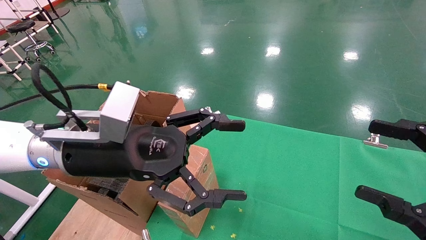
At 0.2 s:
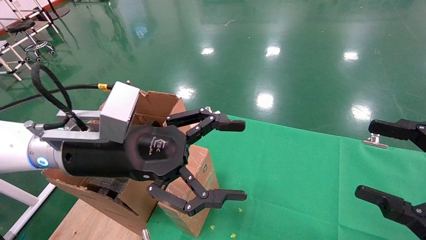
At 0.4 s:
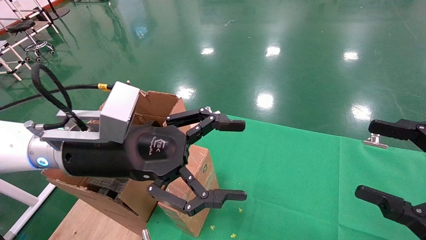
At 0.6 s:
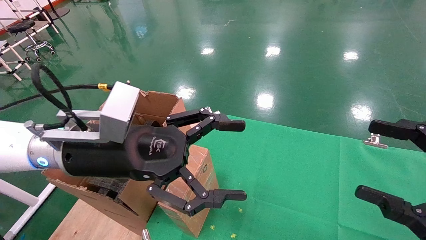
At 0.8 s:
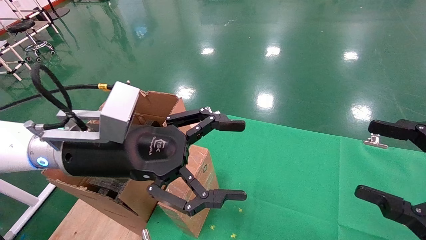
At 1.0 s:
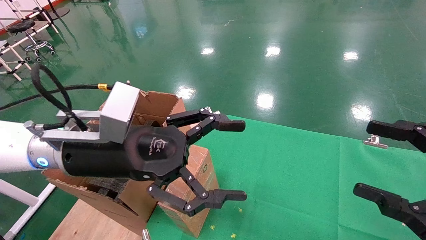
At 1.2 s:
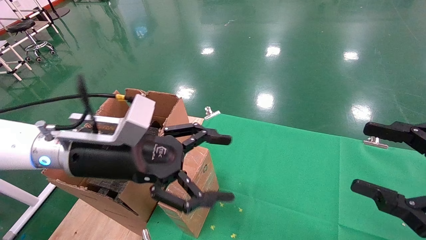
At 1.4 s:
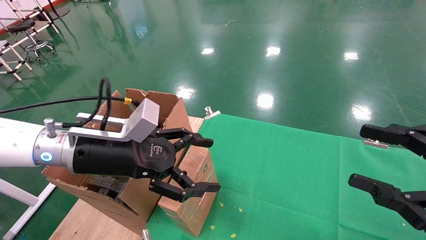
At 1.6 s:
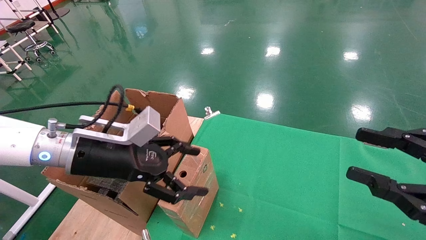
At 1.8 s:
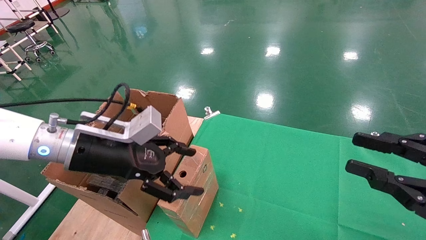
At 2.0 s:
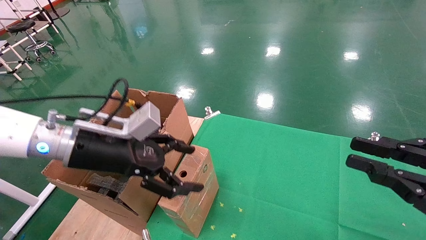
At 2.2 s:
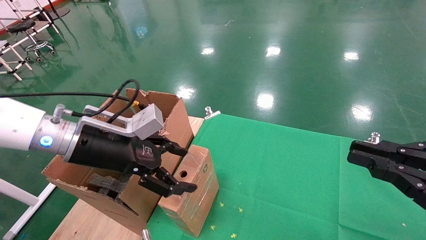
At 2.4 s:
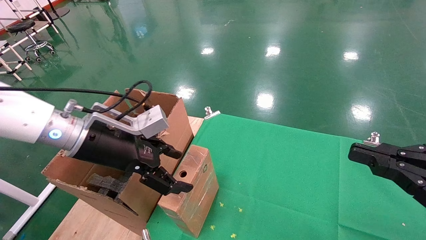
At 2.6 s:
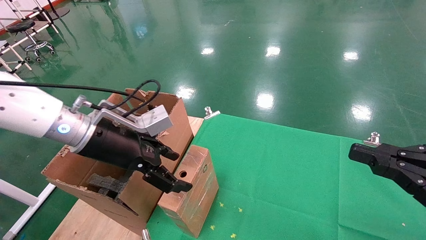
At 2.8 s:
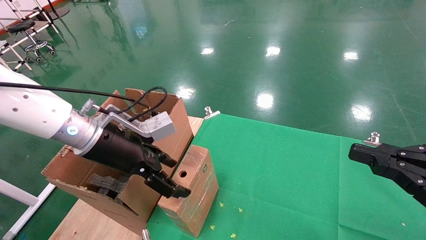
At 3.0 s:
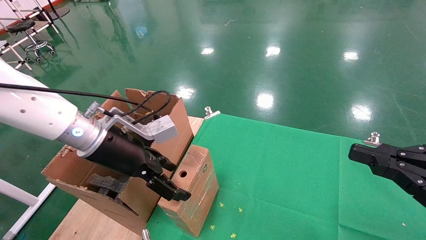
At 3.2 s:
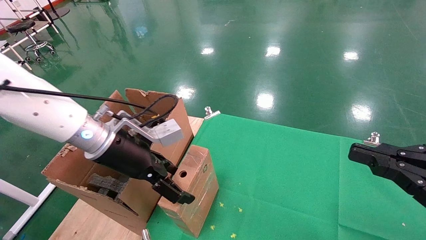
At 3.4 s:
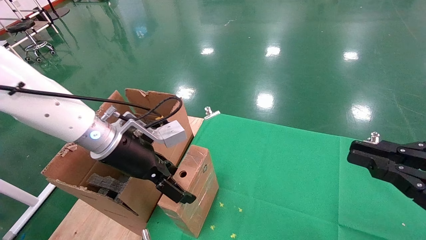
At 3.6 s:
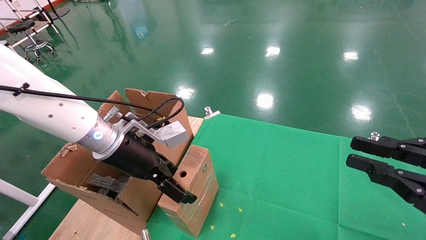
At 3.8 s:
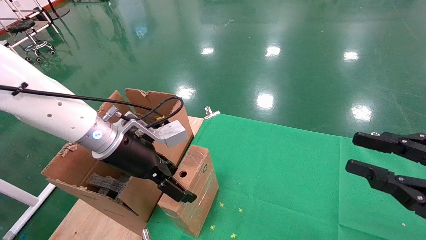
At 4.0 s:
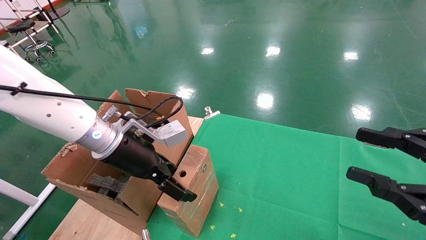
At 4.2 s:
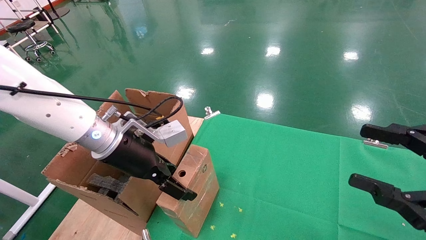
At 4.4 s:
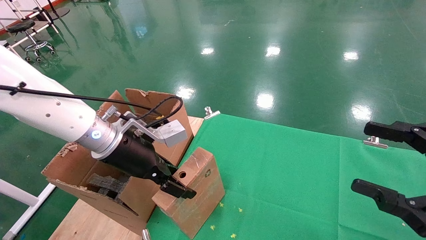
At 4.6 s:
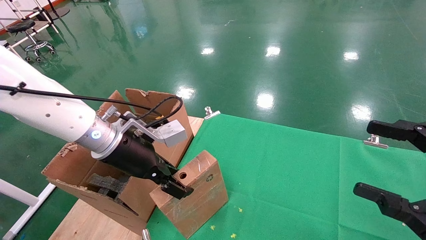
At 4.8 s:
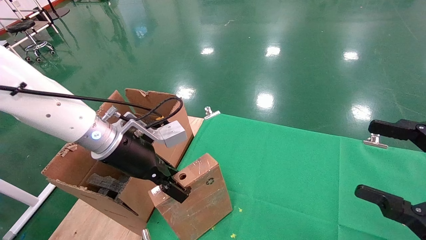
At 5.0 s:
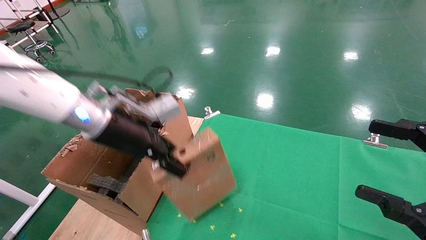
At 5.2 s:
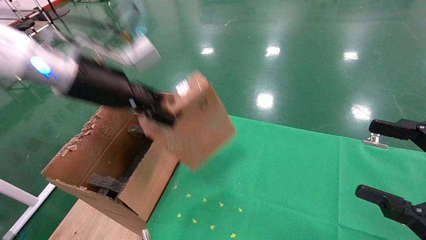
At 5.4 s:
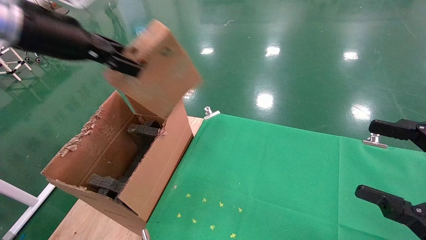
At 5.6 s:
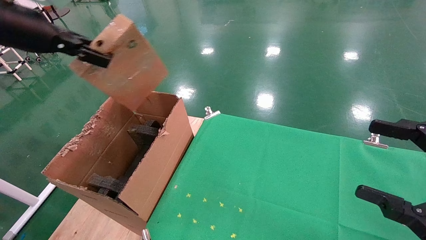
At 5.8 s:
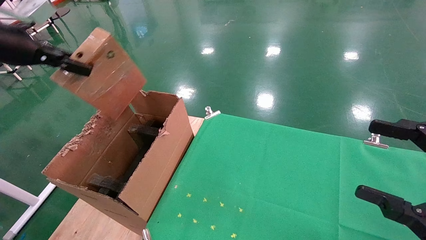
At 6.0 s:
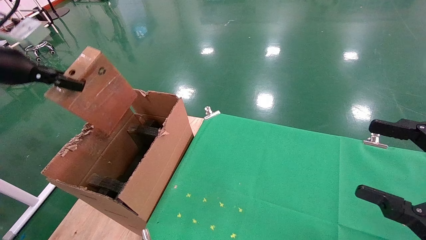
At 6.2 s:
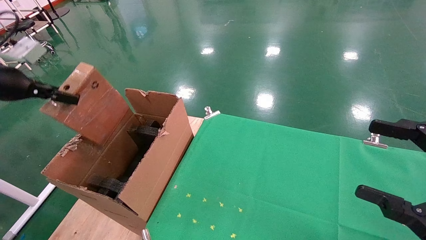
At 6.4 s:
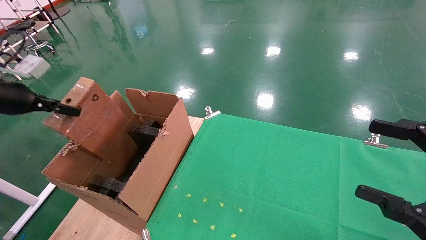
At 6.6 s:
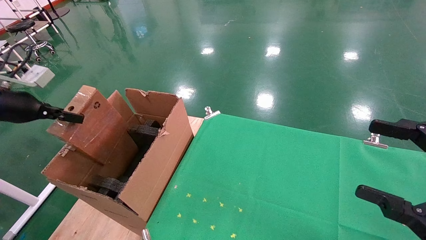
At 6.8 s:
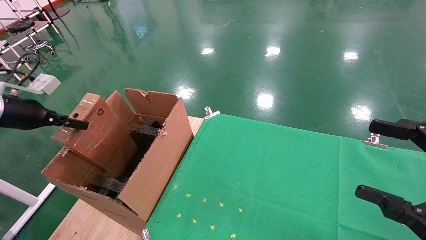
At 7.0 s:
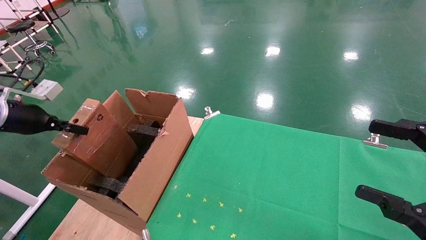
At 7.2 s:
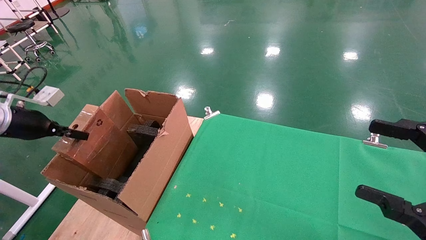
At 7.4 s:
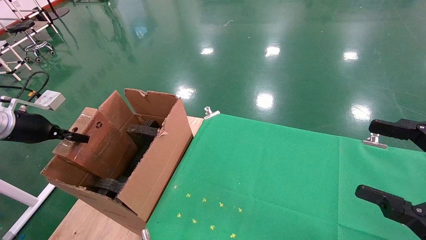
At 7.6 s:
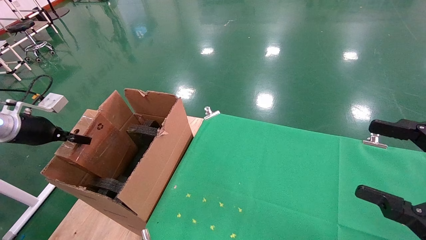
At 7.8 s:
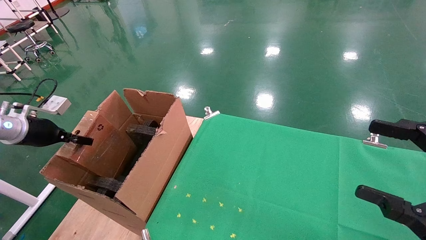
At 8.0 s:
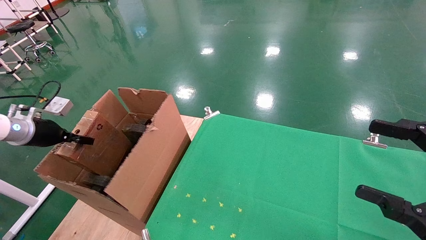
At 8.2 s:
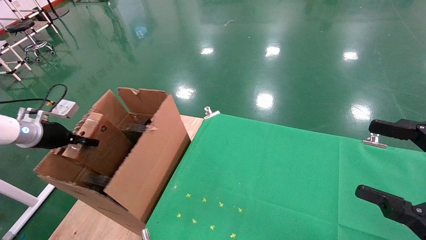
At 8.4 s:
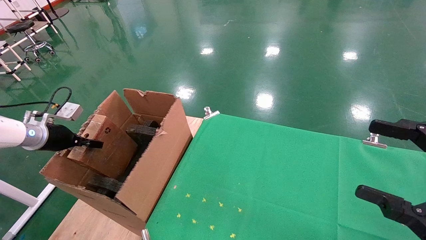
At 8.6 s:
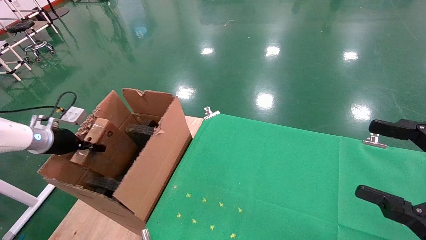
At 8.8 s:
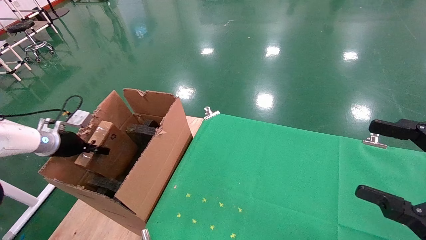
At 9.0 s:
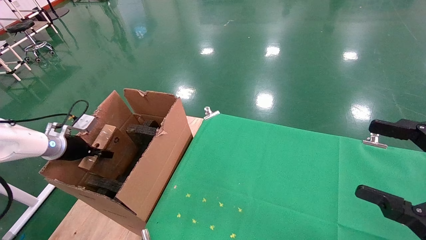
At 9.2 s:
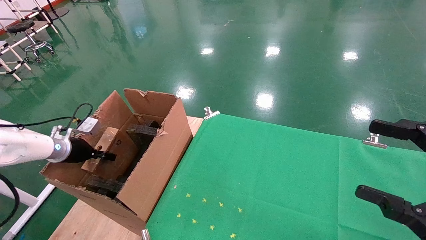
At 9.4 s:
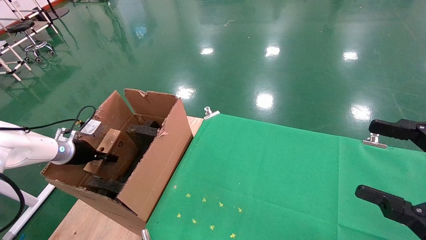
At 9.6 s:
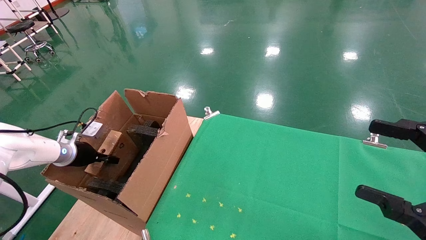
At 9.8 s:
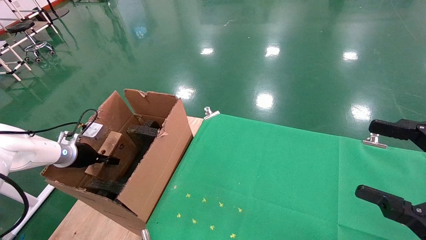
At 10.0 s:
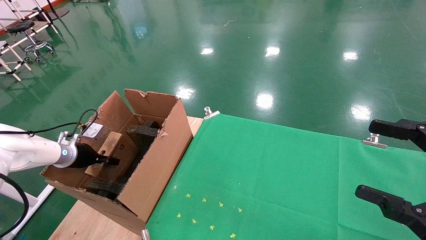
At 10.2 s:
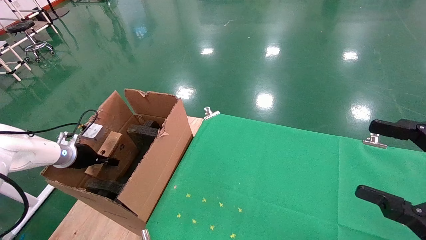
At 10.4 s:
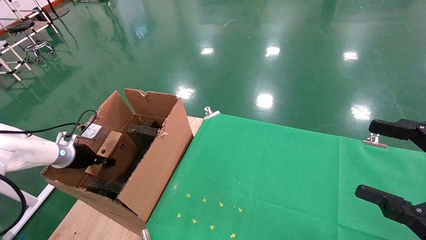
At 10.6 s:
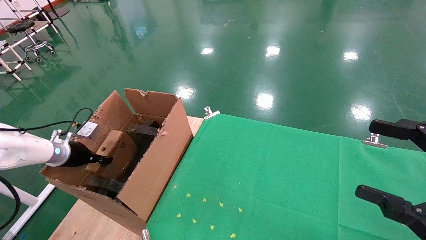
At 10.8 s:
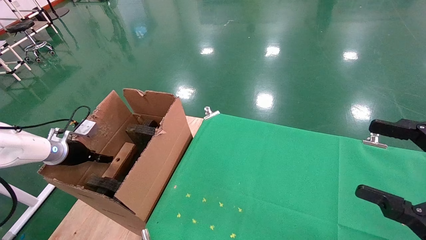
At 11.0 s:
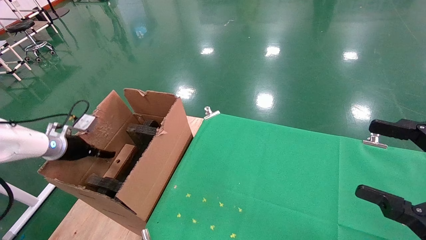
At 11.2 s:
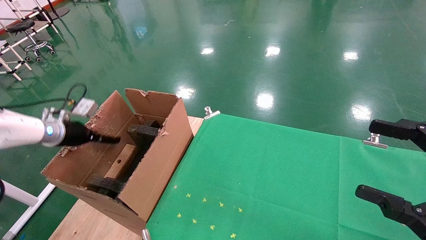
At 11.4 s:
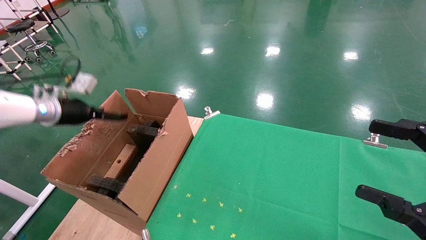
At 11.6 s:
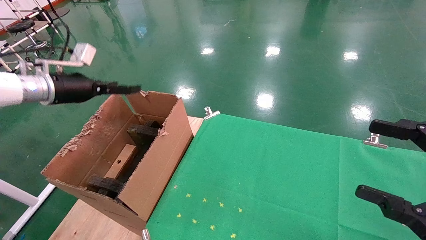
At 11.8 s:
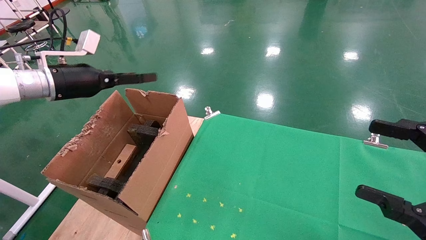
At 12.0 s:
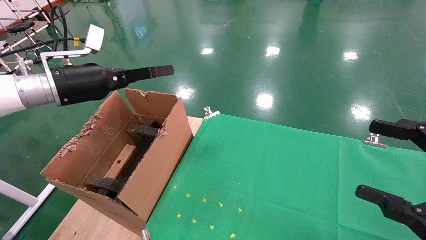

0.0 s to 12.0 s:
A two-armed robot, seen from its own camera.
Task of the whole recording: using a robotic arm to pick up a cardboard box and palace it the carton.
Step, 1.4 to 4.6 s: Pick up the mouse and the power cord paper box.
Step, 4.8 to 11.4 s: Place the mouse and the power cord paper box into the container.
0.0 to 1.6 s: The right gripper closes. The left gripper ends up approximately 5 cm from where it was.
1.6 to 3.0 s: The right gripper closes.
3.0 to 4.4 s: The left gripper closes. Meanwhile the right gripper opens up.
4.4 to 6.0 s: The left gripper travels to the left and upward by about 30 cm, and closes its fingers.
6.0 to 7.6 s: The left gripper moves downward, approximately 15 cm.
7.6 to 9.0 s: The left gripper shifts some 10 cm downward and forward.
9.0 to 10.4 s: There are only small adjustments of the grippers.
10.4 to 12.0 s: The left gripper moves upward and to the right, approximately 25 cm, and opens up.

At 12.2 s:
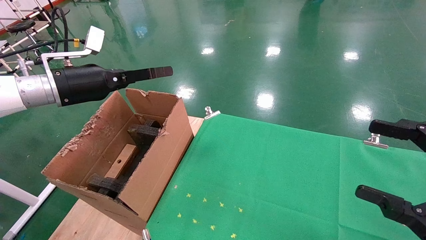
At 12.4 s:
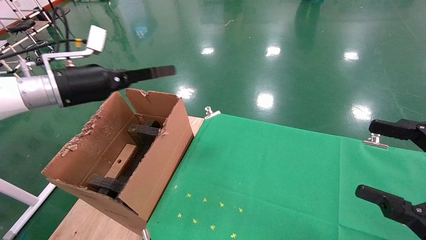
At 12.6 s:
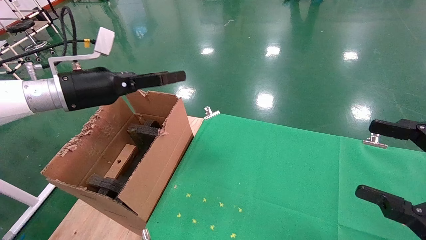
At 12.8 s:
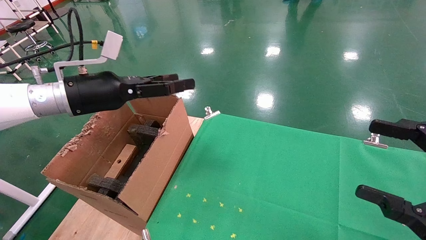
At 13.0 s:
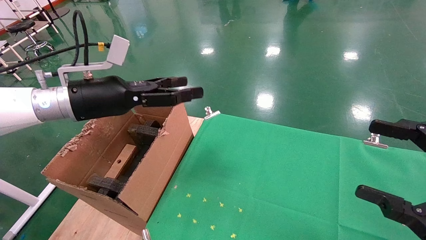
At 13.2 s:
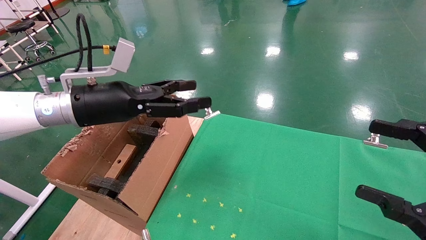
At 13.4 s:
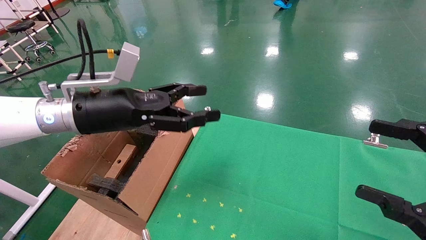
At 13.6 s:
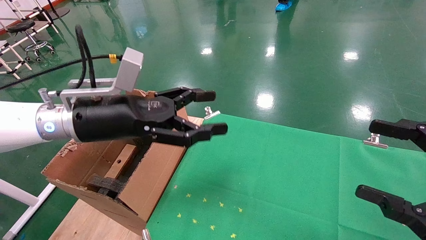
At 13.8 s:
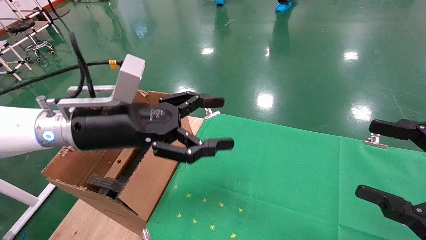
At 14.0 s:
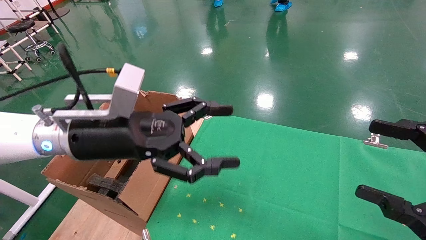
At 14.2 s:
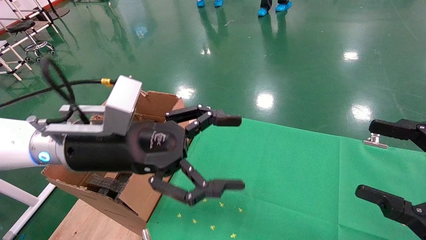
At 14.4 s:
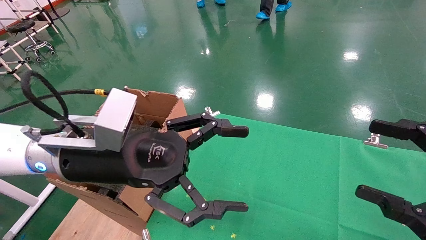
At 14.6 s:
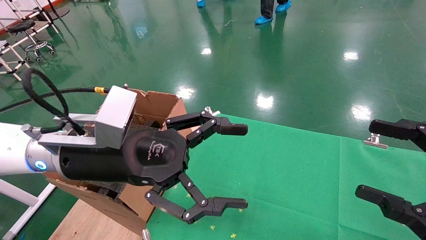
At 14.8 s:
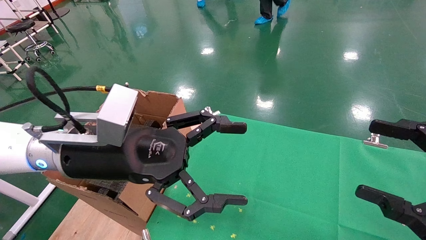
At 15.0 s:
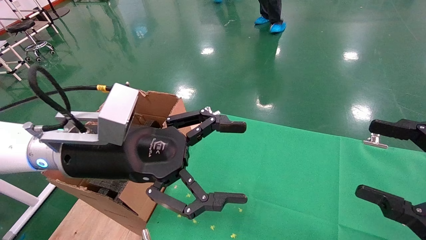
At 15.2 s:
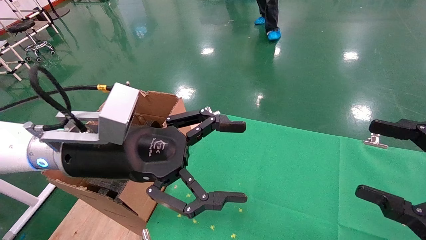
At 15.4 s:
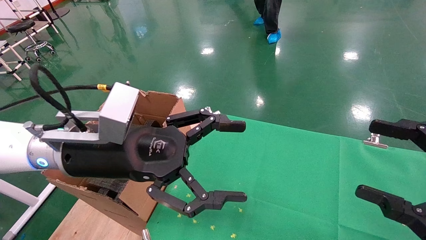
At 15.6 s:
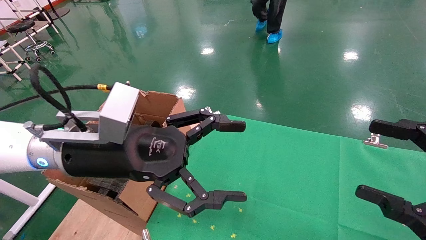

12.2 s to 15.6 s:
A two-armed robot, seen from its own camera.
Task of the whole recording: using a robotic arm to pick up a cardboard box and palace it the carton.
12.2 to 13.8 s: The left gripper travels to the right and backward by roughly 15 cm.
